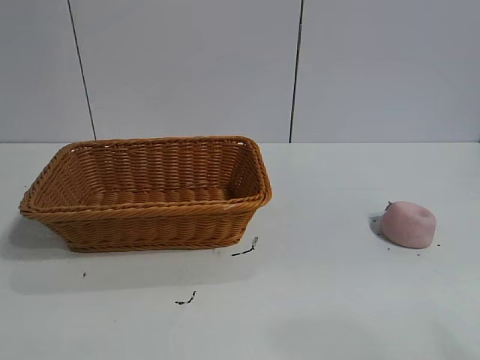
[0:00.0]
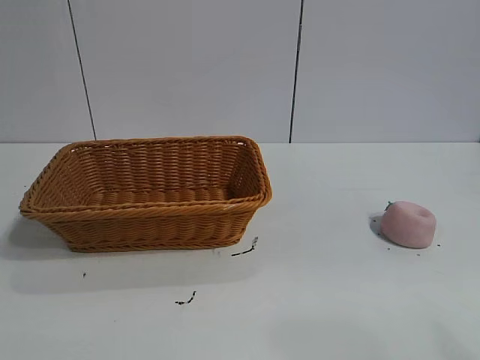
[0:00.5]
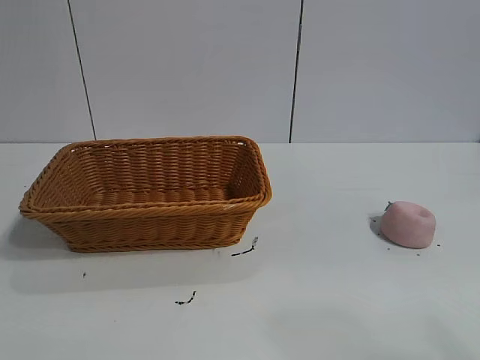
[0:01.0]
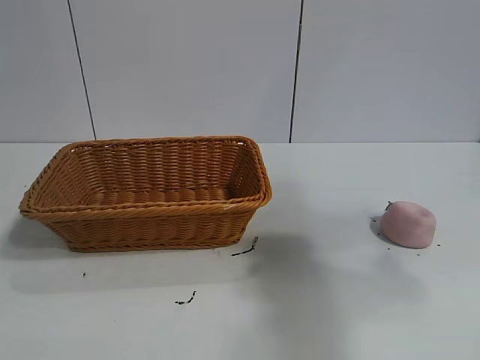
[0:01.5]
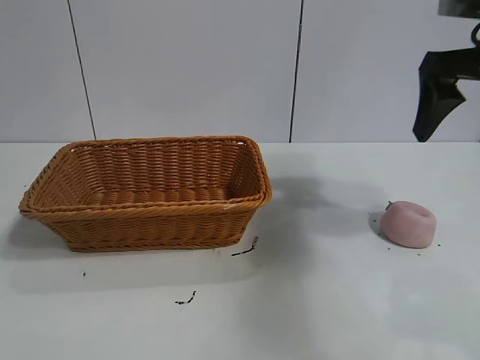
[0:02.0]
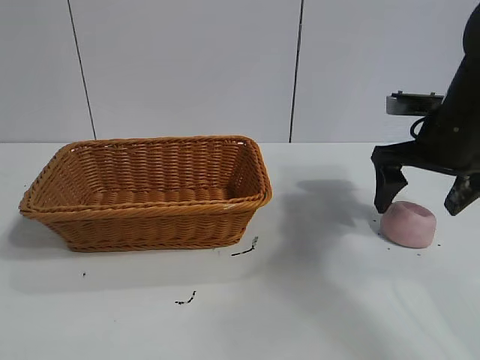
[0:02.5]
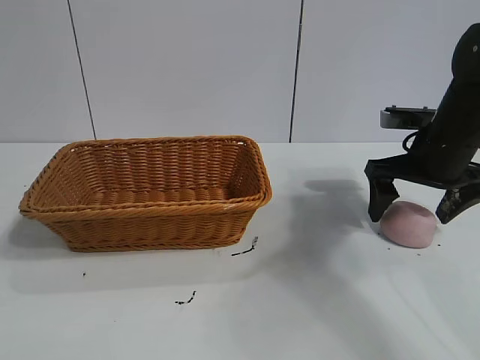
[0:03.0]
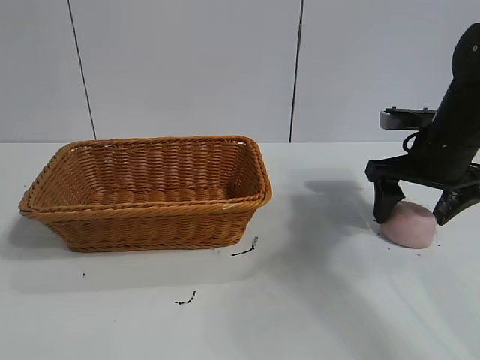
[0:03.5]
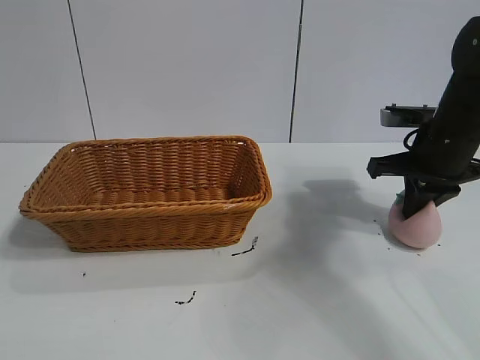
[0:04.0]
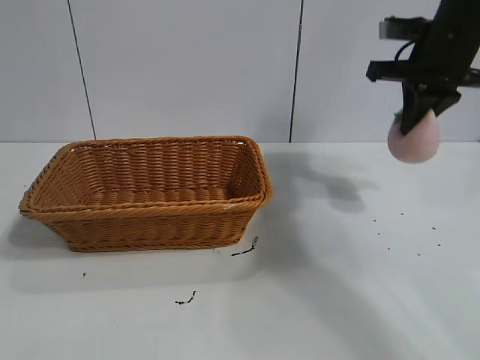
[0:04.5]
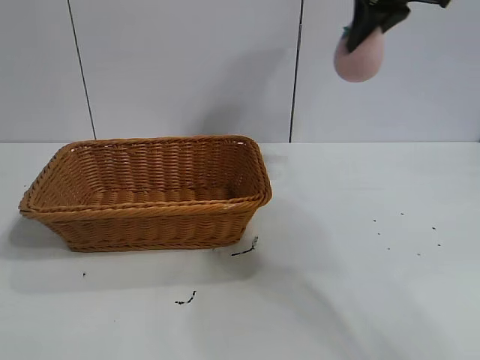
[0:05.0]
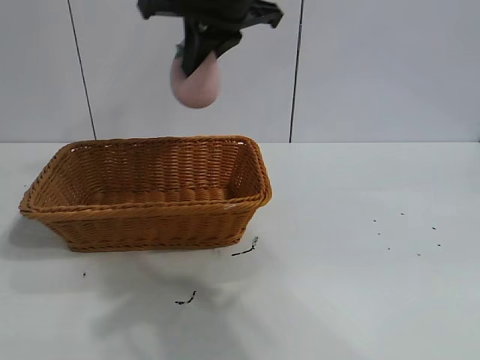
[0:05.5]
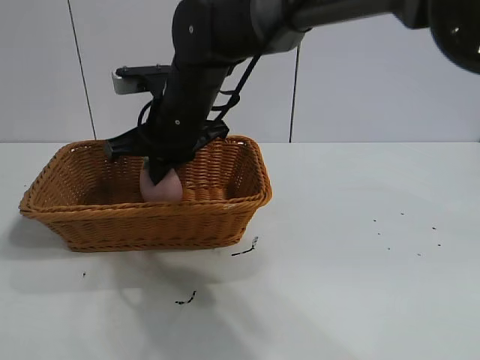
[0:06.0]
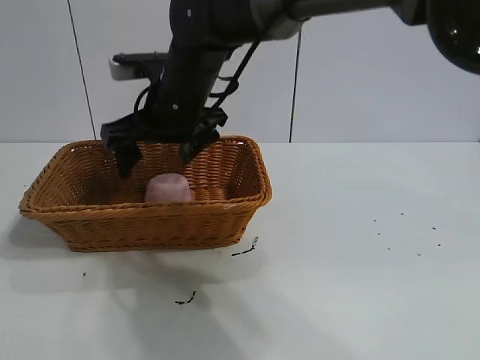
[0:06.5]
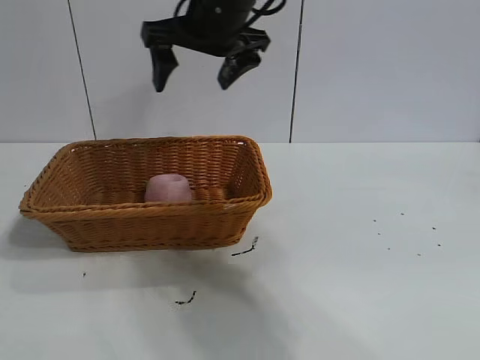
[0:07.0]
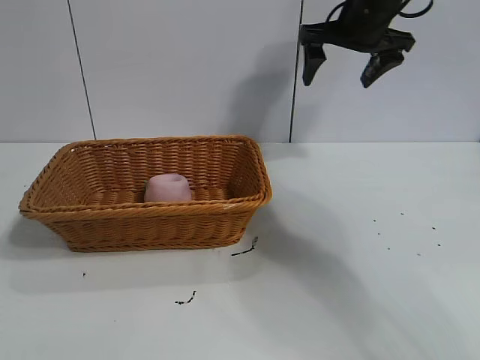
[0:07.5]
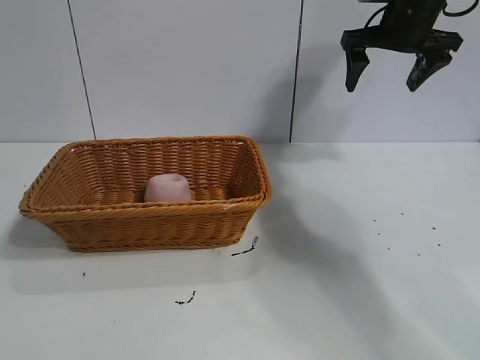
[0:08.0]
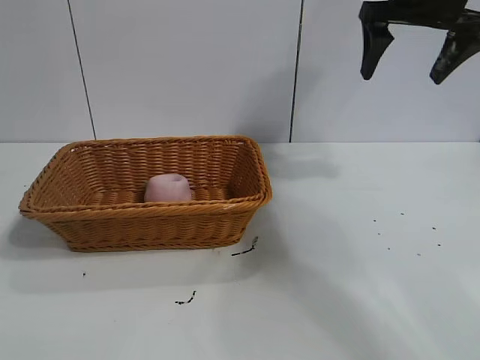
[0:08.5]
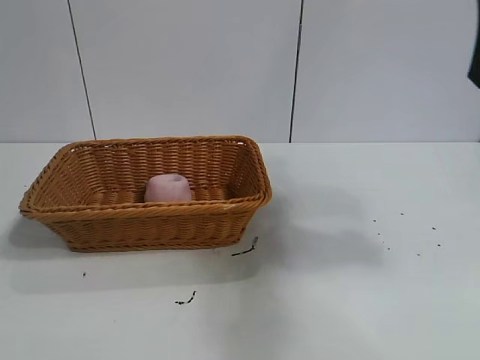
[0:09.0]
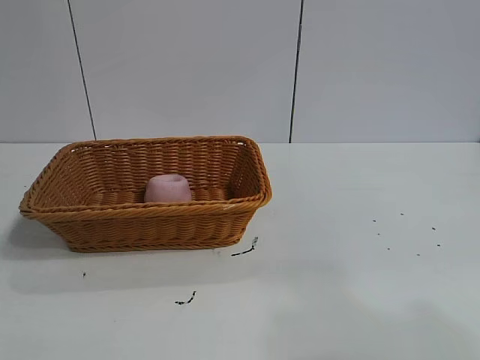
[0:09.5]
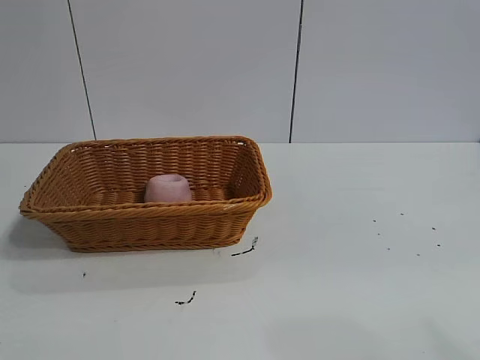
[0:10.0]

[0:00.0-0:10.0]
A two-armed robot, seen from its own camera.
Task of the whole recording: pick up the peach and put it into the basket.
Step, 0:01.0 to 0:04.0: Grasp the peach with right gripper.
Step, 0:04.5 to 0:06.0: Place the peach in the basket with right gripper.
